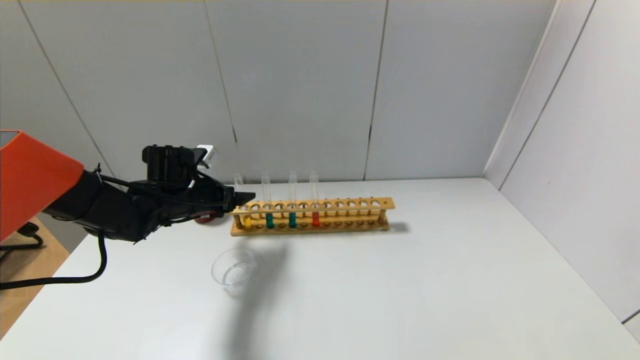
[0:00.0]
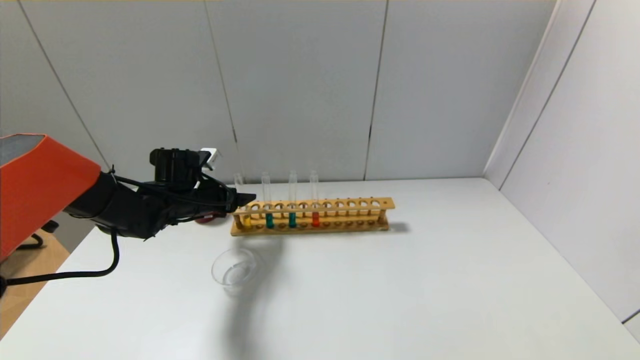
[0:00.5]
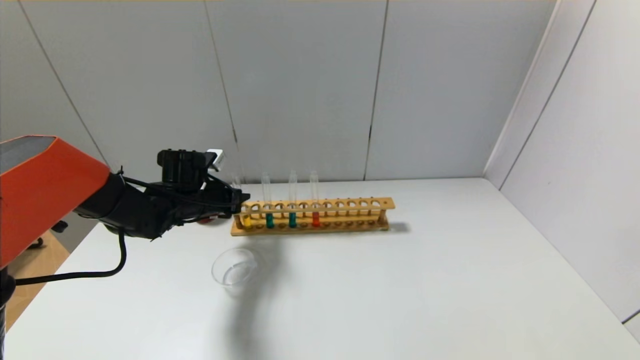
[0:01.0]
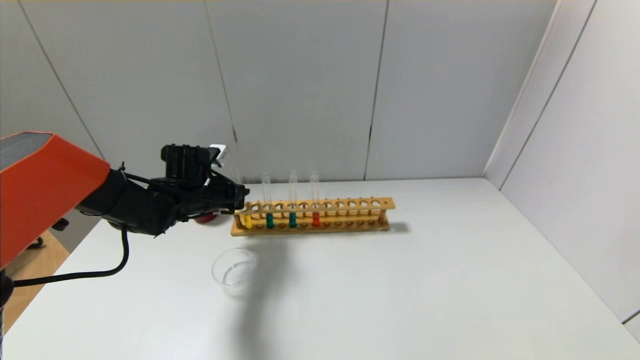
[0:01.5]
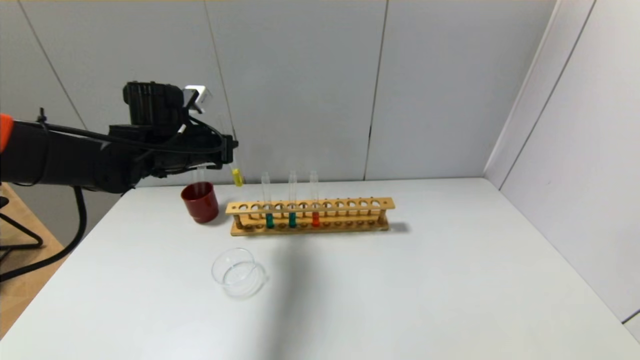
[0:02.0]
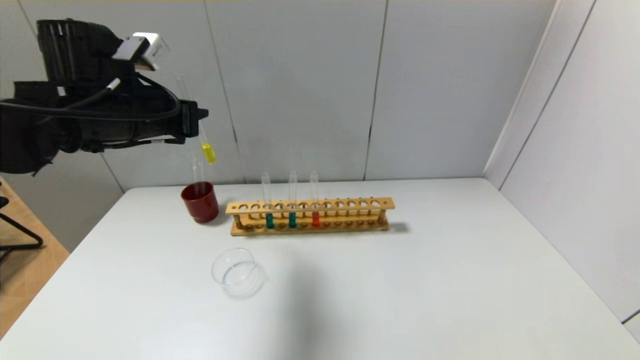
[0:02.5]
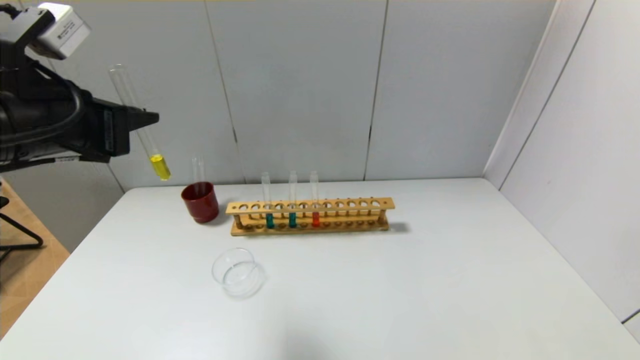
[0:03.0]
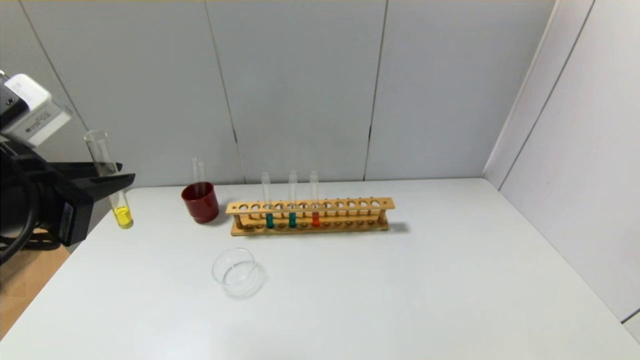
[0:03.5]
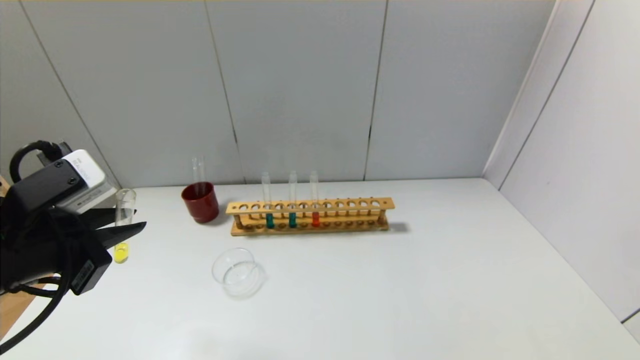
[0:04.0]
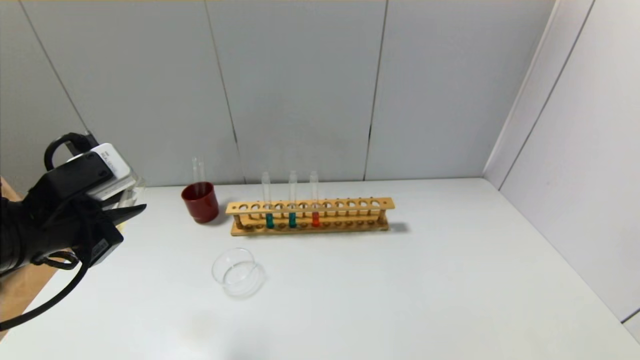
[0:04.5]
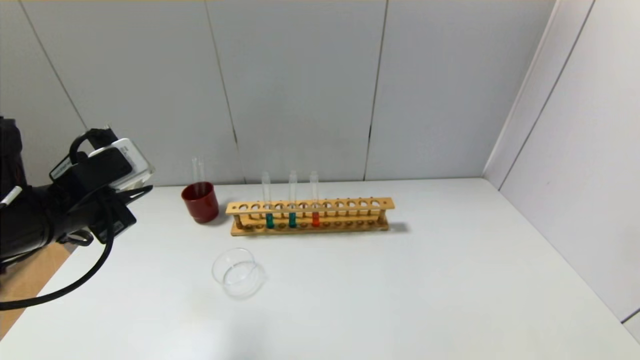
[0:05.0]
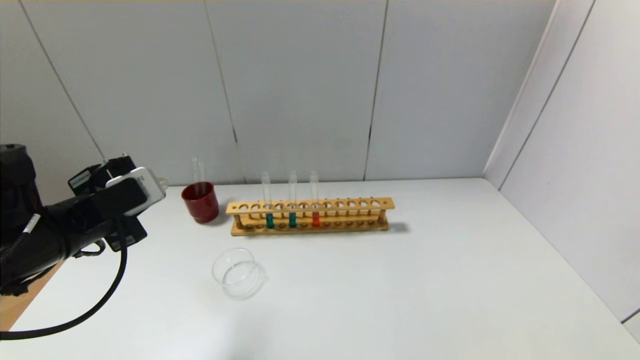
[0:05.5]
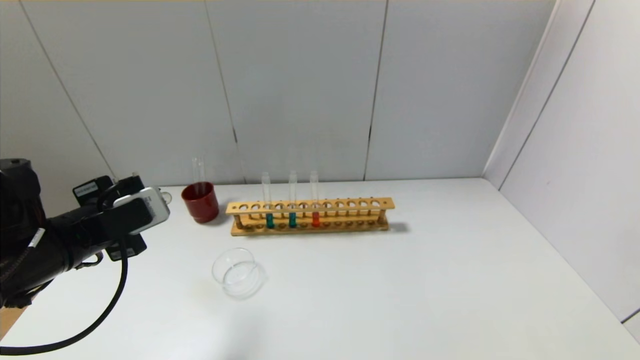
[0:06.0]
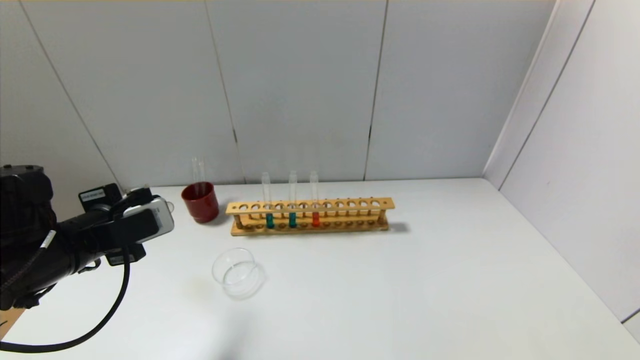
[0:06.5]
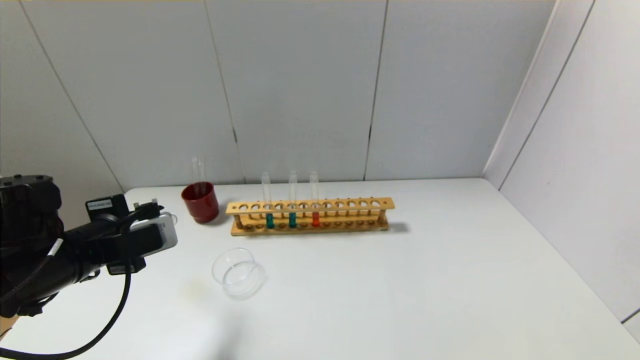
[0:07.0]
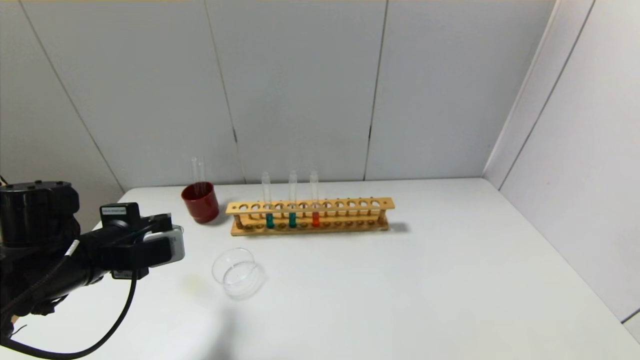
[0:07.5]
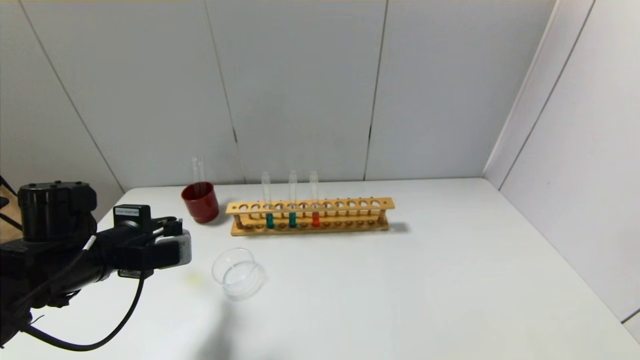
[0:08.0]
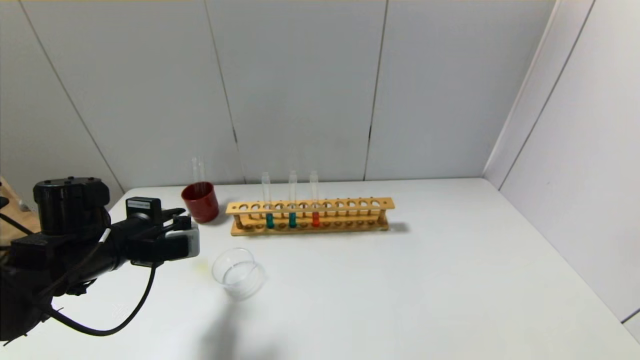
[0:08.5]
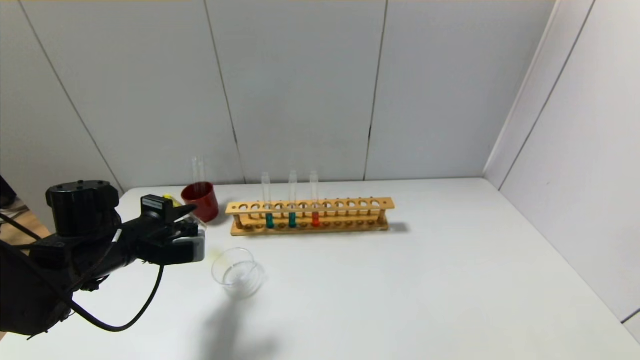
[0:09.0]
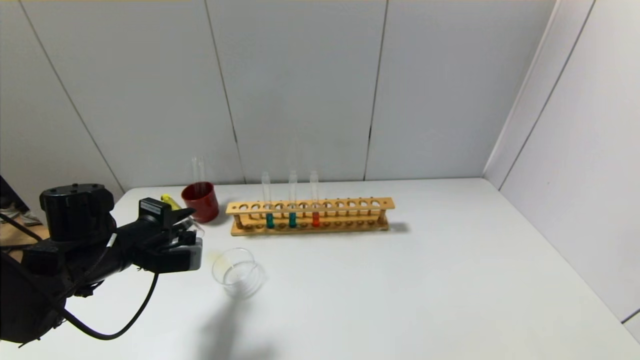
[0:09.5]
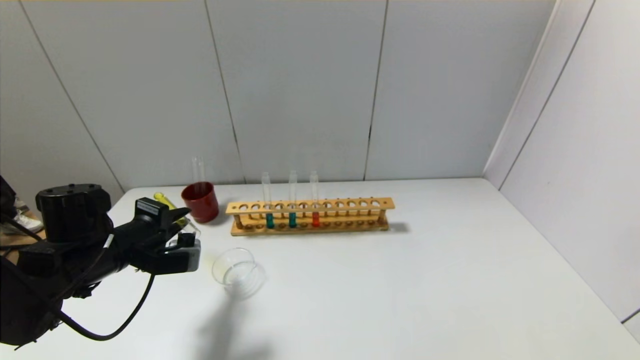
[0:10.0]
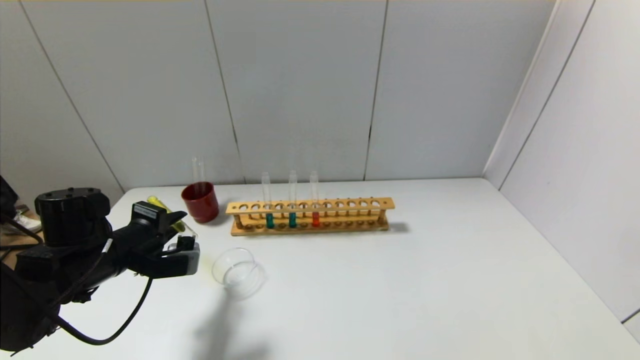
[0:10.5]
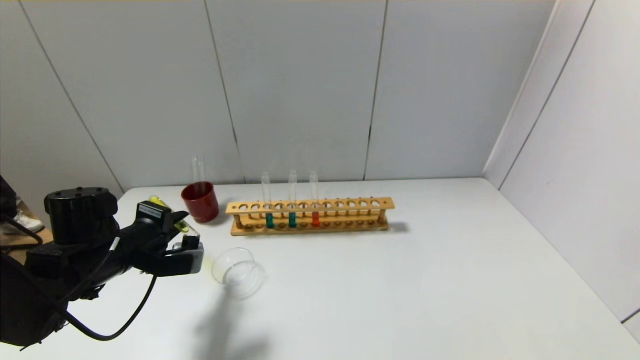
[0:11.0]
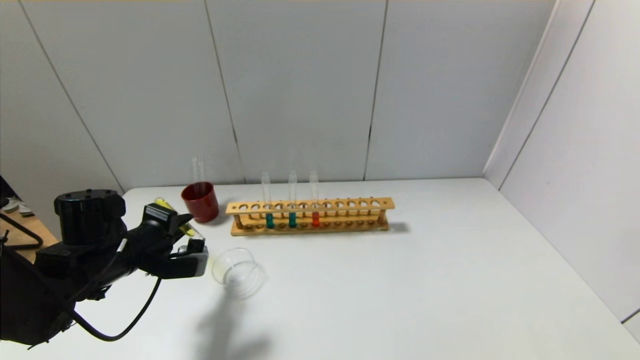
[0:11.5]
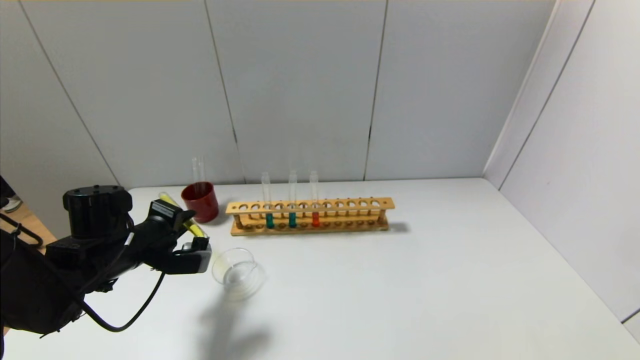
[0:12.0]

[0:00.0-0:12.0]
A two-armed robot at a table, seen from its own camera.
0:00.0 to 0:02.0: The left gripper moves upward, some 10 cm, and closes up.
0:02.0 to 0:04.0: The left gripper moves backward, approximately 20 cm.
0:04.0 to 0:06.0: The left gripper goes about 5 cm forward.
0:06.0 to 0:08.0: The left gripper moves approximately 5 cm.
0:08.0 to 0:10.0: The grippers move only a little.
0:10.0 to 0:12.0: The grippers move only a little.

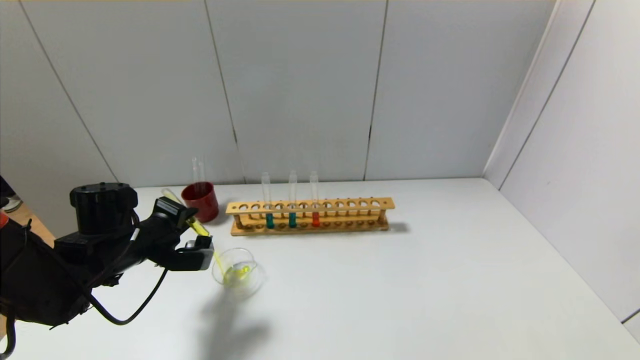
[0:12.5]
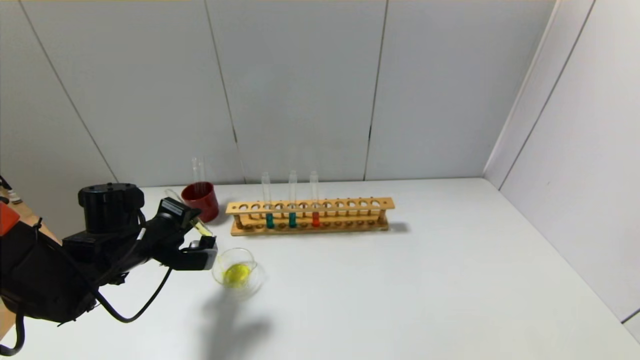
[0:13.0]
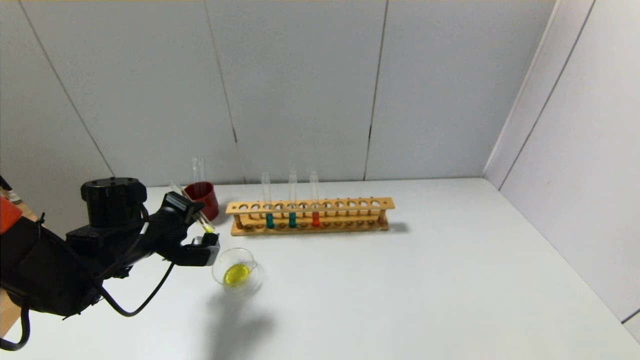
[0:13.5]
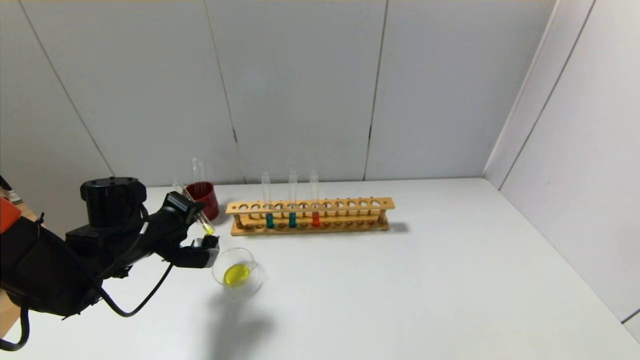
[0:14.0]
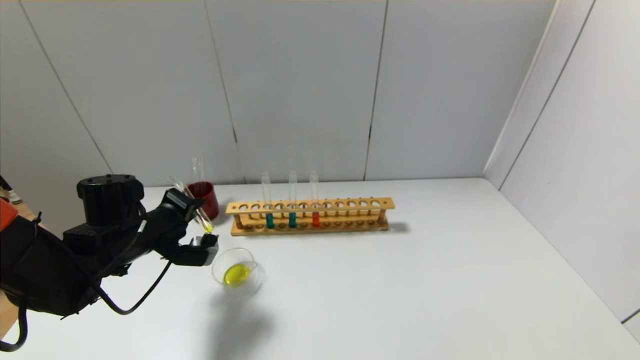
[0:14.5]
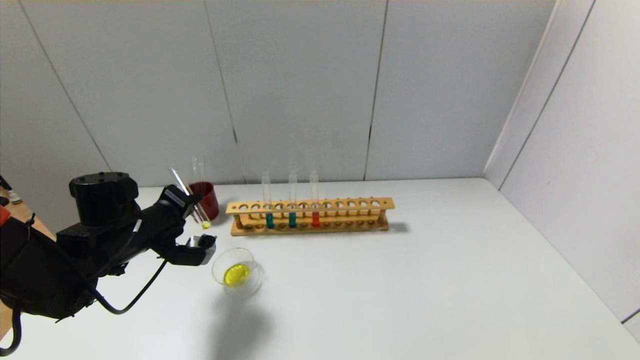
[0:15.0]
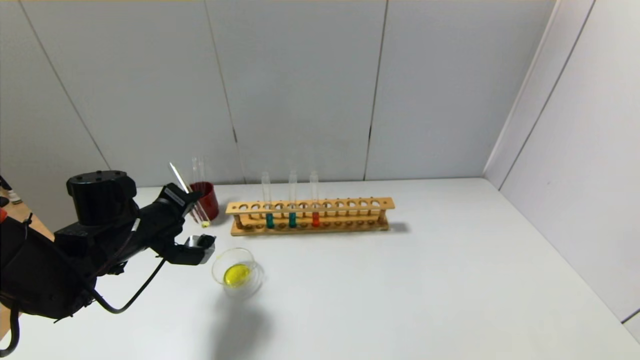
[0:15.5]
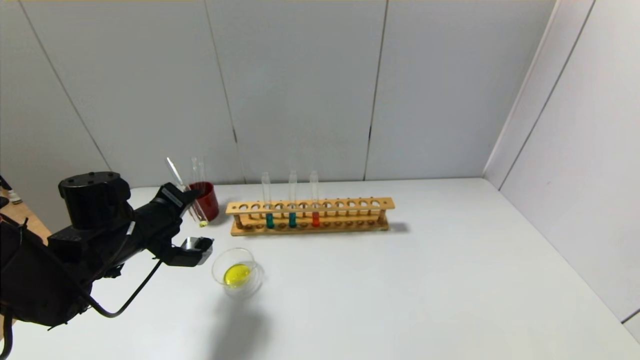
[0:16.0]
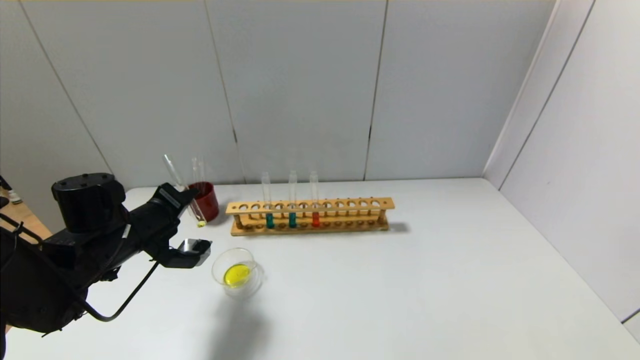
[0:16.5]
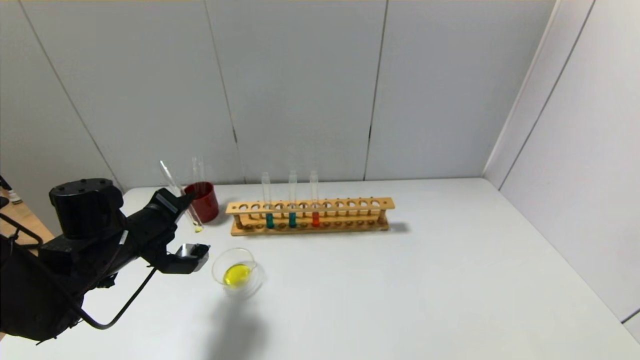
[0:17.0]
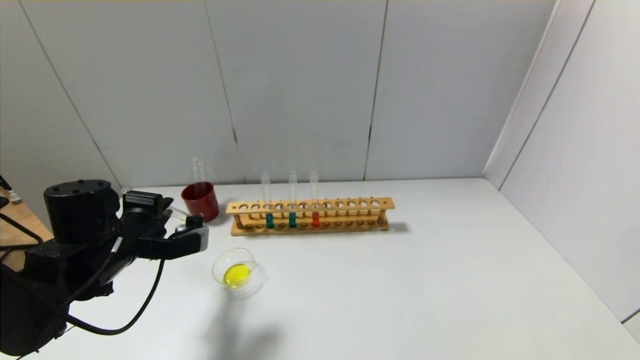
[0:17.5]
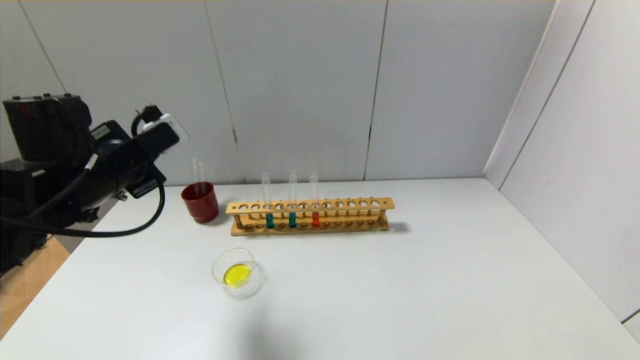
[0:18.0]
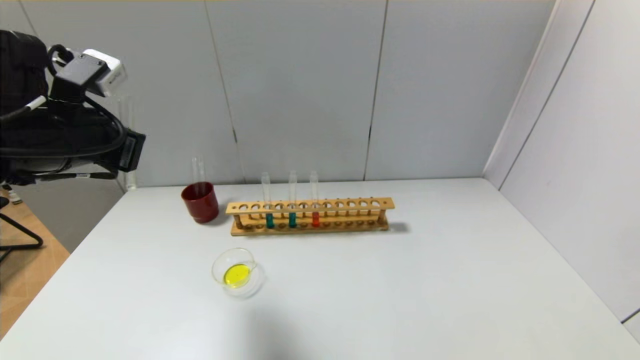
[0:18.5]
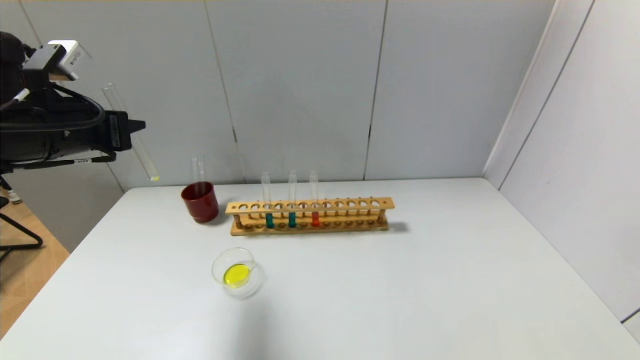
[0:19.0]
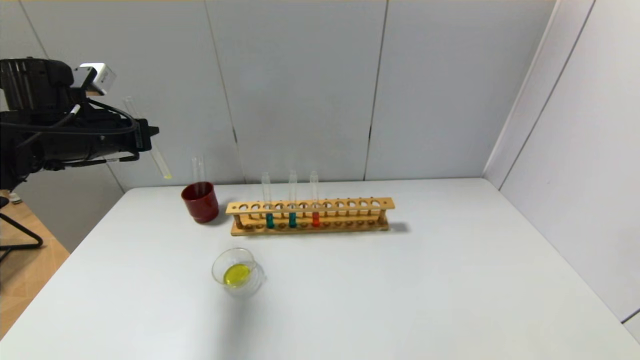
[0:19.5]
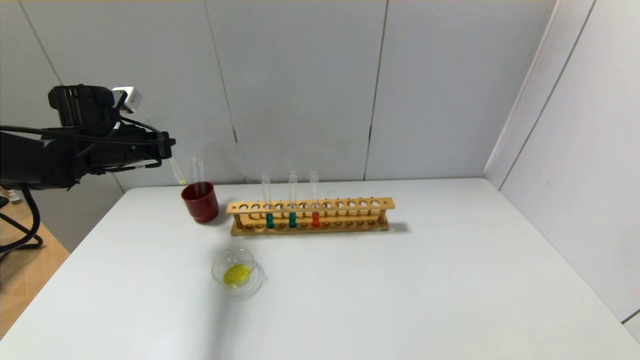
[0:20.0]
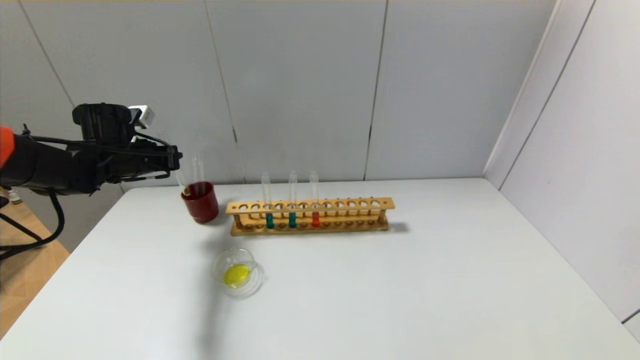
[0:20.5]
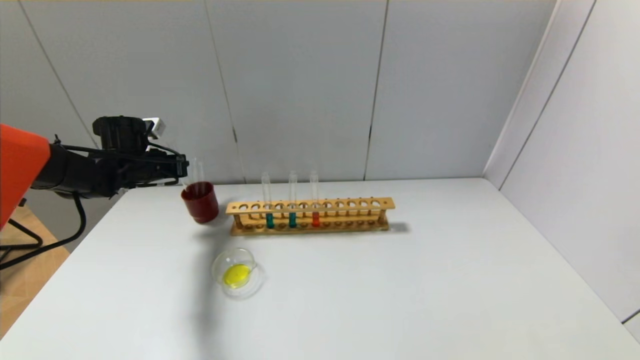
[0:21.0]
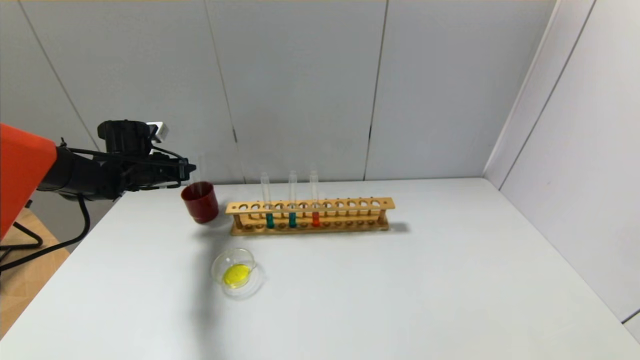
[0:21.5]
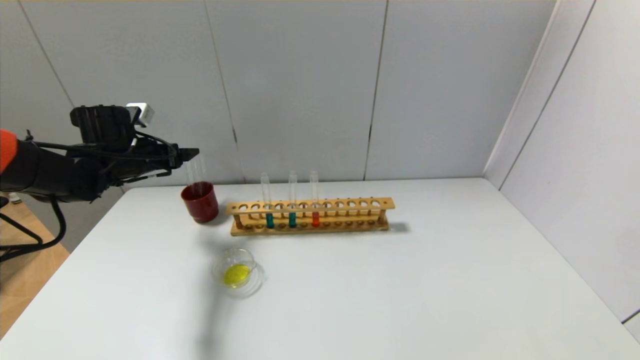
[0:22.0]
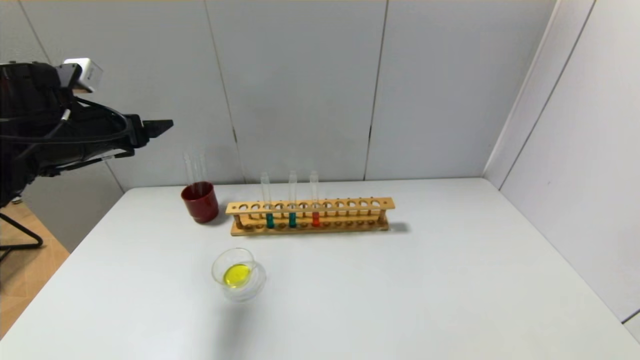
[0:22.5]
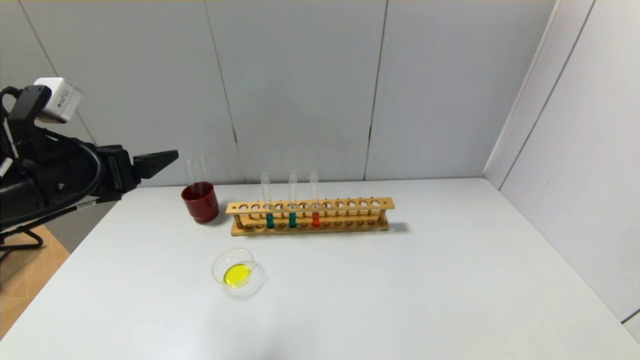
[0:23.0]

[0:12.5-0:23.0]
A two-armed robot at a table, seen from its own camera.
Step, 0:12.5 to 0:17.0: Pour the yellow reagent into the graduated cylinder with the left gripper.
Step, 0:17.5 to 0:22.0: Place the test tube into the brown cup with the left gripper.
0:12.5 to 0:14.5: The grippers move only a little.
0:14.5 to 0:16.5: The grippers make only small movements.
0:16.5 to 0:19.0: The left gripper goes approximately 15 cm upward.
0:19.0 to 0:21.0: The left gripper shifts about 20 cm forward and downward.
0:21.0 to 0:23.0: The left gripper goes about 25 cm backward and upward, and opens up.
